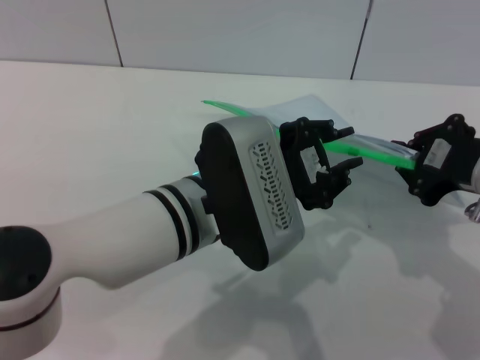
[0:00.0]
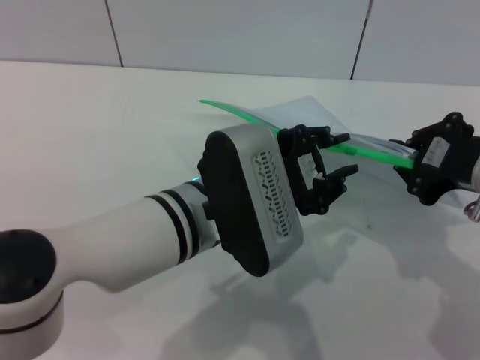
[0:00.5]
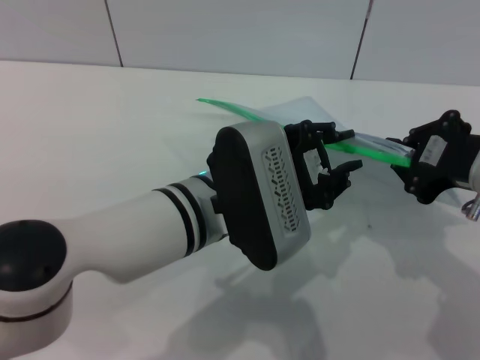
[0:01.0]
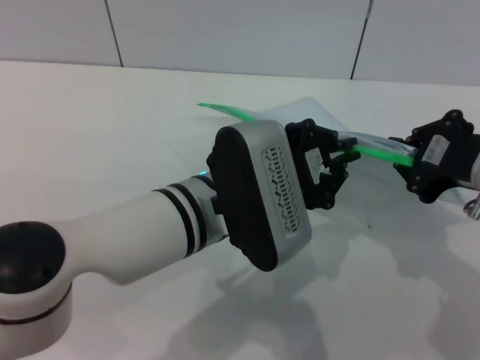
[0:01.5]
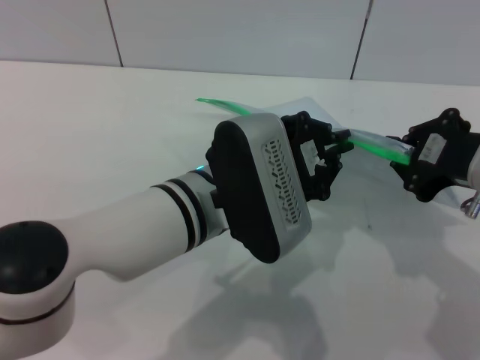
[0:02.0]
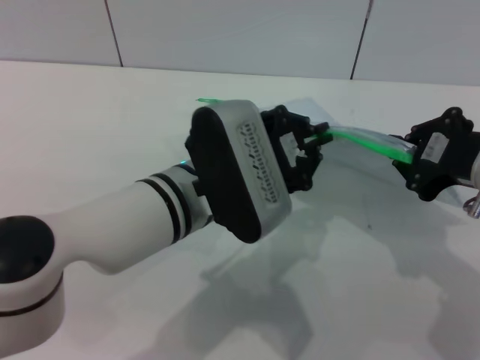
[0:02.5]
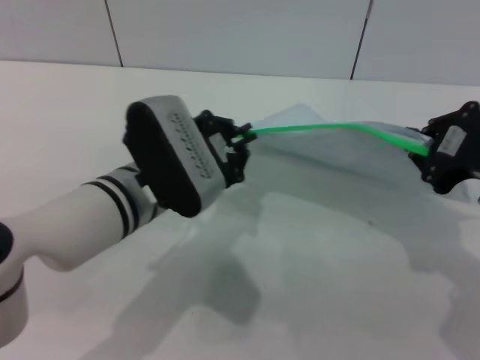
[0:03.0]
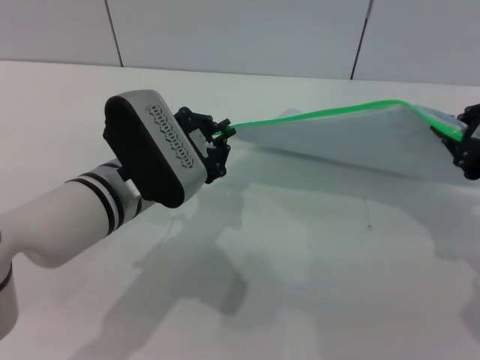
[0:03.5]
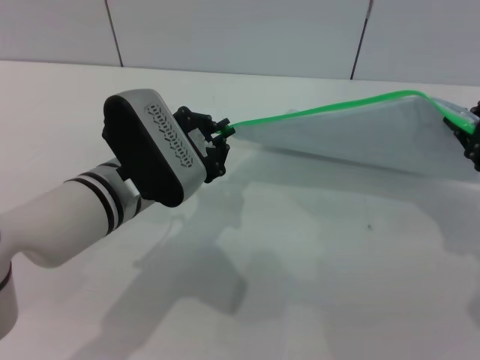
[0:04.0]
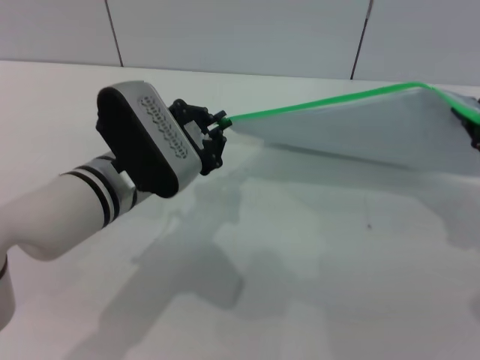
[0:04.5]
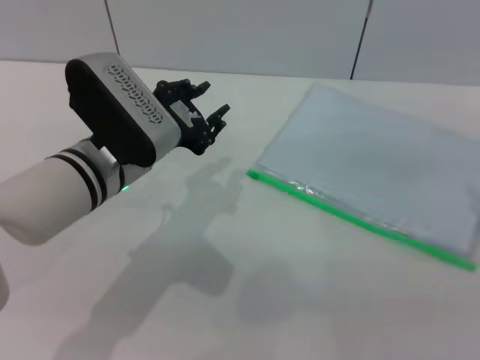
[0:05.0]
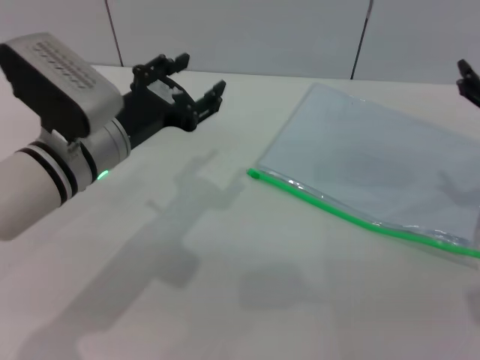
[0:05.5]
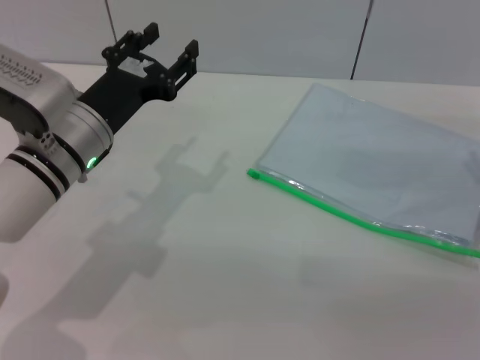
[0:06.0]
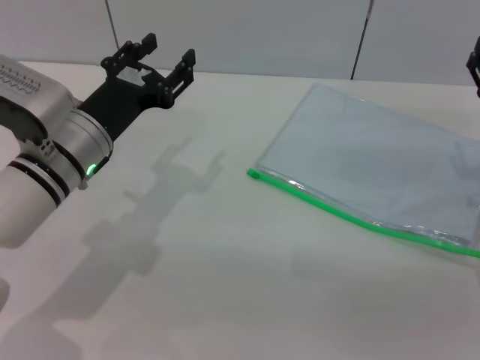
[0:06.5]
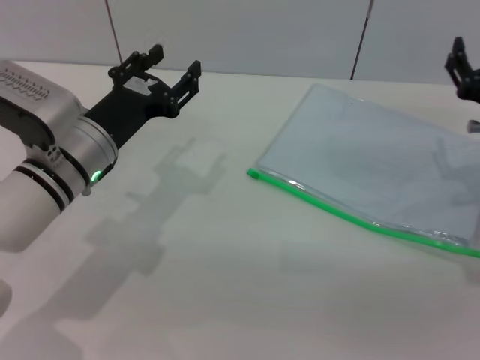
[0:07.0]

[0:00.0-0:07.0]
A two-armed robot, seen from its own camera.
Step, 0:00.0 to 0:05.0: Pulling up the zipper on the transparent plastic bag with the left gripper to close it.
0:00.0 to 0:02.0: The left gripper closes its fingers.
0:02.0 to 0:03.5: The left gripper goes roughly 10 cm to the left.
0:03.5 to 0:05.0: The left gripper opens up.
0:05.0 to 0:07.0: The right gripper is displaced downward and forward by roughly 15 cm, and opens its fingers. The left gripper shifts by approximately 5 cm, and opens its fingers.
